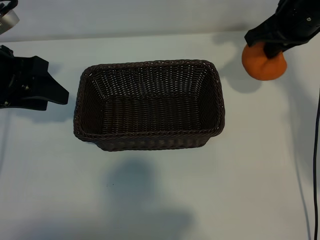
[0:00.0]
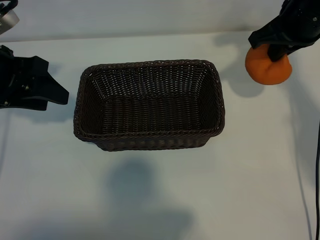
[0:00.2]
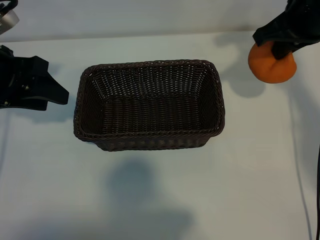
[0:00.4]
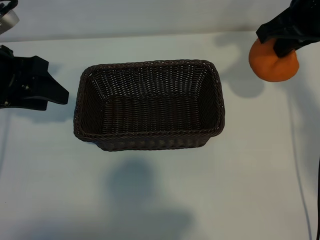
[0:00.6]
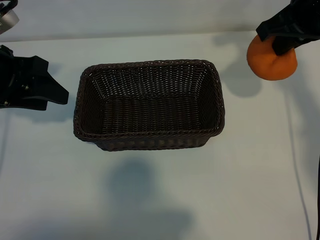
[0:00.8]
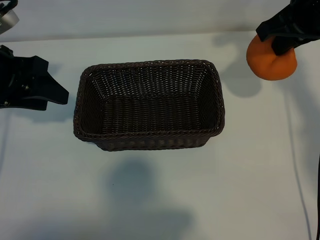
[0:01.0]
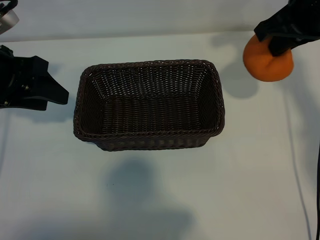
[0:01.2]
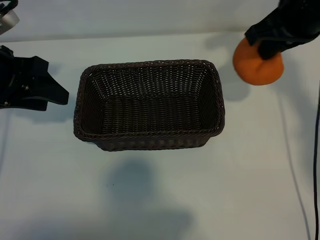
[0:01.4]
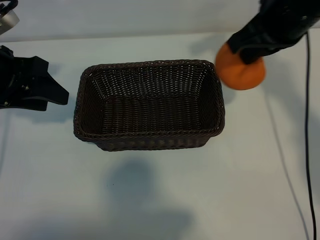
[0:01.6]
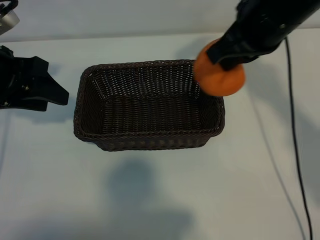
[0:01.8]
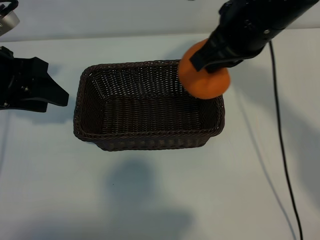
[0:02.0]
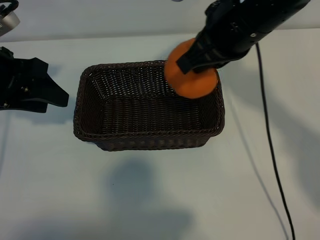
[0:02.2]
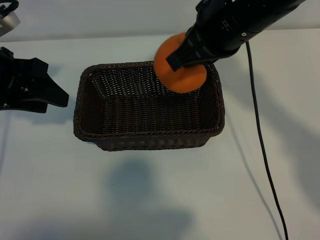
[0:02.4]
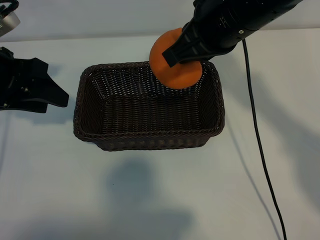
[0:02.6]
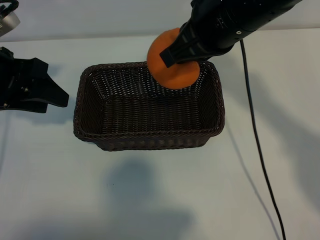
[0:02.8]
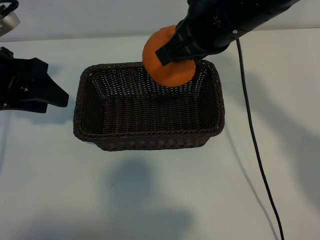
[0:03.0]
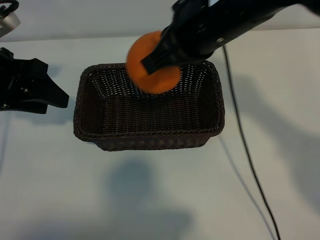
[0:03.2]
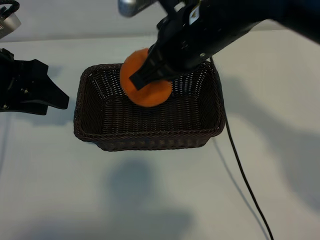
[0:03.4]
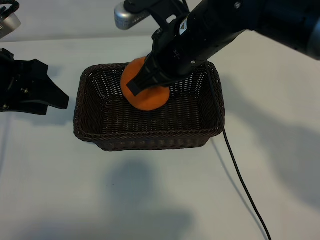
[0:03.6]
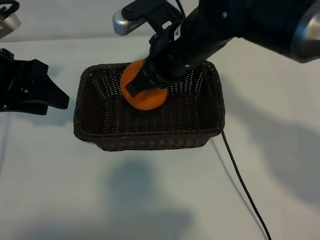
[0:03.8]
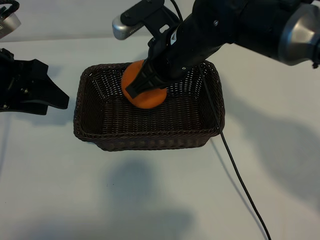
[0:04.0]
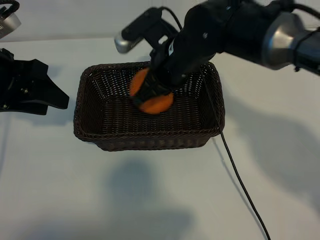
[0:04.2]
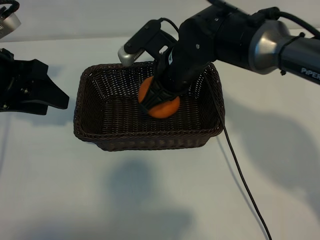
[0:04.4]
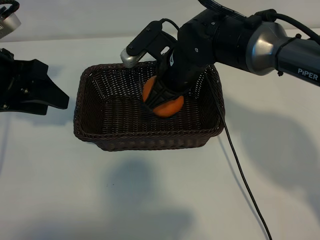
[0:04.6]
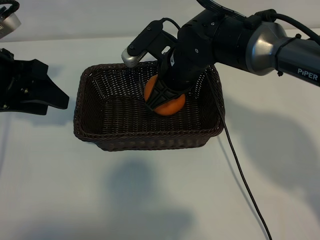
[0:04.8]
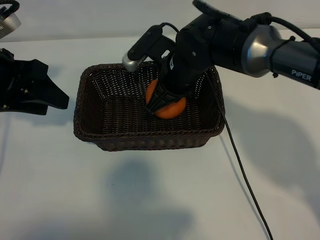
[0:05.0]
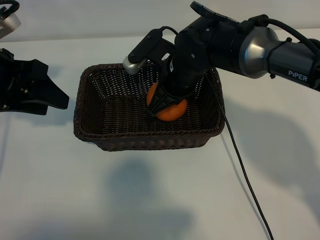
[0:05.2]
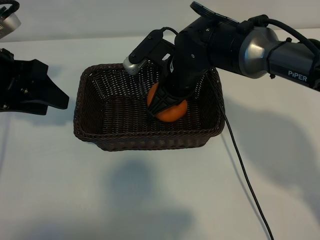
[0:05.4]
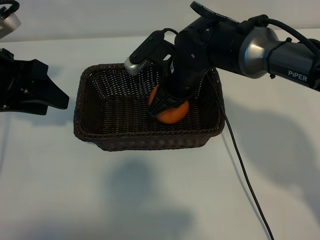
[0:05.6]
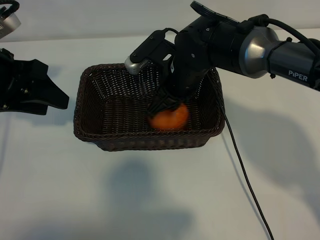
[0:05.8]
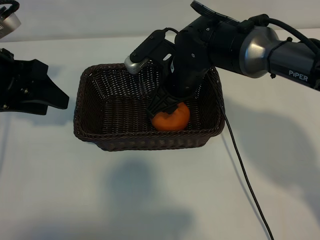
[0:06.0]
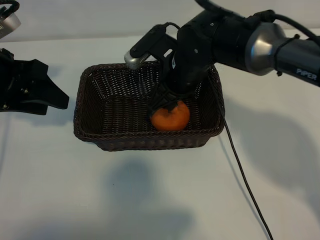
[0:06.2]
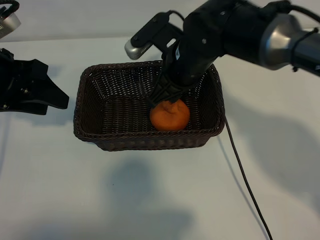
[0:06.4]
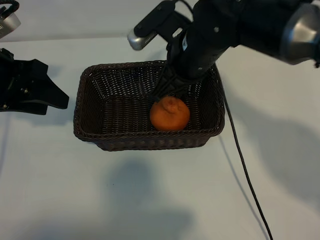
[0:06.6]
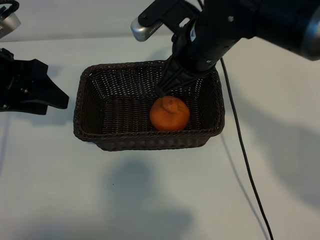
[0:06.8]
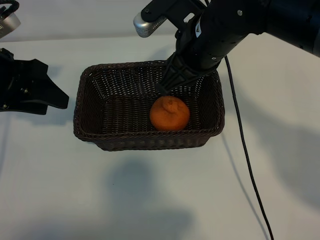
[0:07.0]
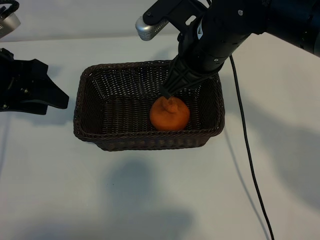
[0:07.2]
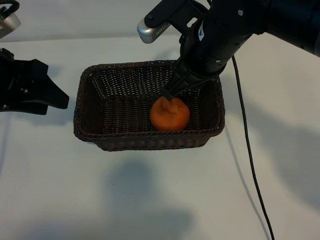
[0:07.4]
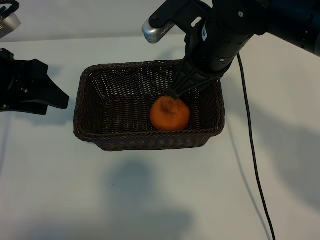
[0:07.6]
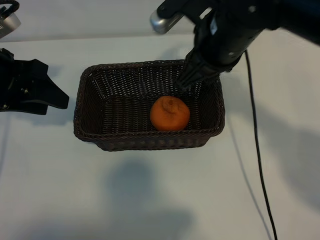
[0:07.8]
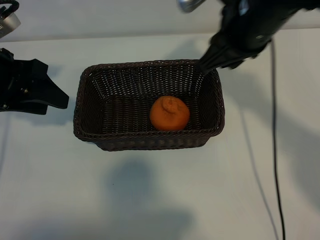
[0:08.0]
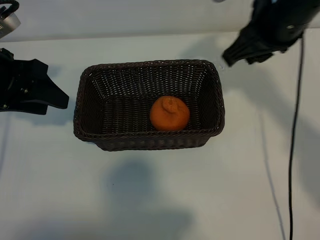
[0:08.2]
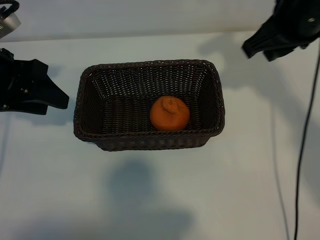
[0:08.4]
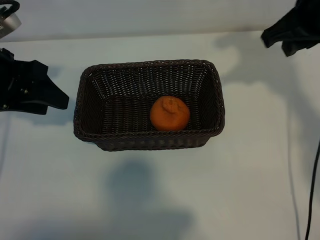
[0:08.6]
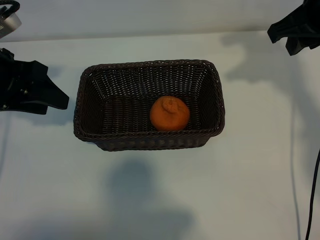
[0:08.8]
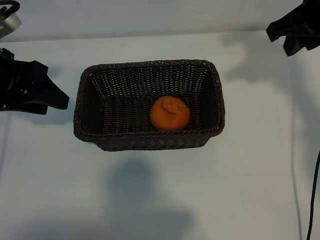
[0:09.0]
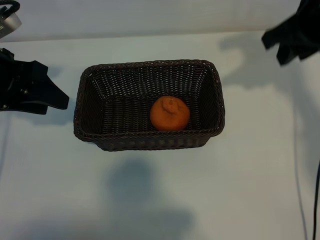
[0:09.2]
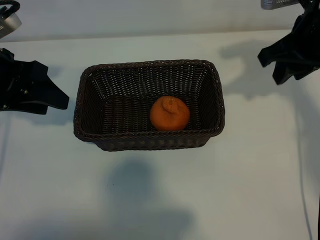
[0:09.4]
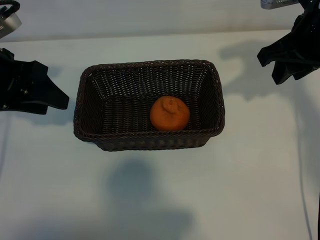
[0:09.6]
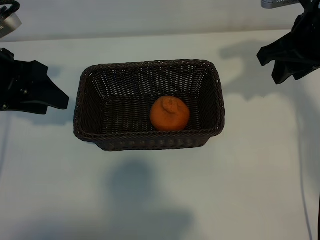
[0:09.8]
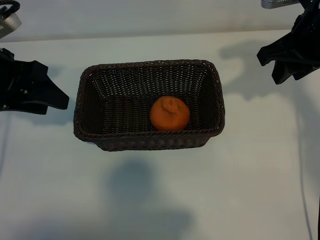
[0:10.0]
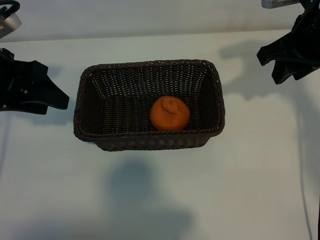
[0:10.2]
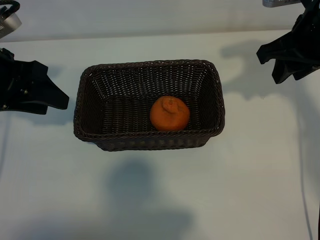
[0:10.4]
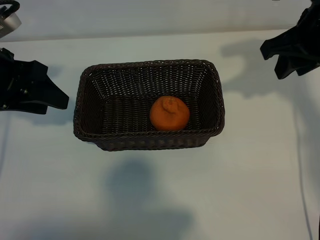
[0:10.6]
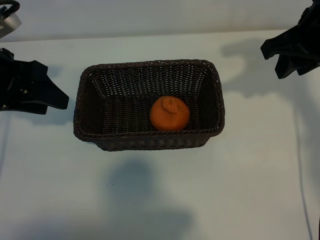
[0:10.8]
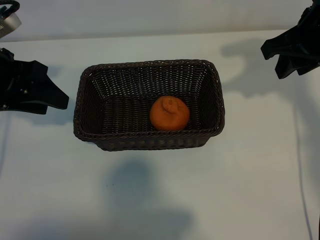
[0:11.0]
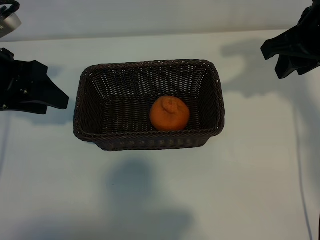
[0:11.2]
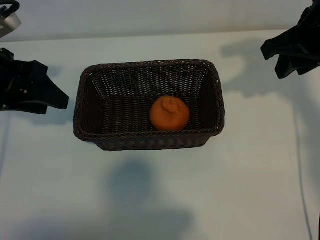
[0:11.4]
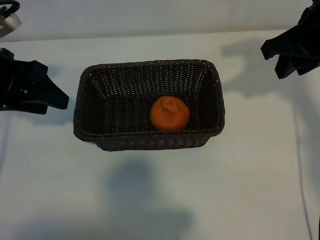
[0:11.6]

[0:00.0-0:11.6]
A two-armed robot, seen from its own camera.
Task of the whole recording: pick up the orange and put it into the basket.
Step, 0:00.0 to 0:05.8: Place the orange in the basket with right gripper.

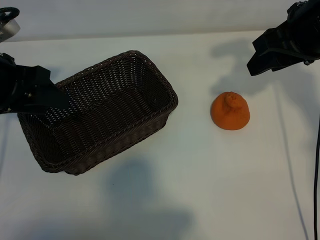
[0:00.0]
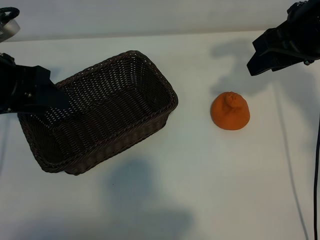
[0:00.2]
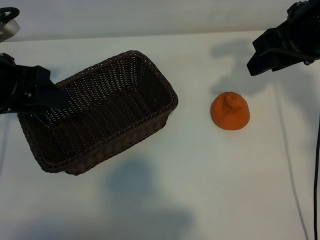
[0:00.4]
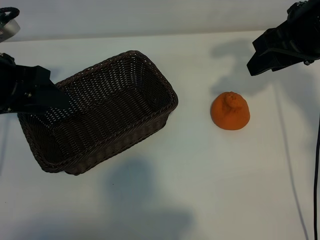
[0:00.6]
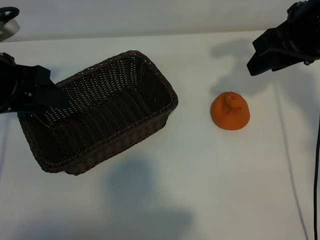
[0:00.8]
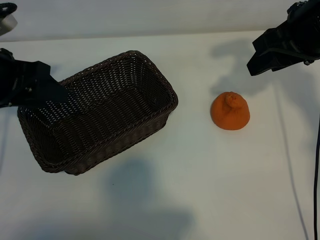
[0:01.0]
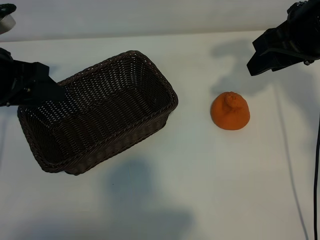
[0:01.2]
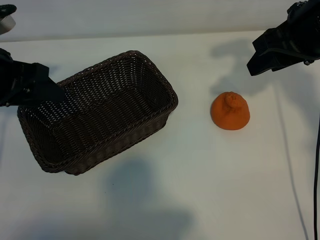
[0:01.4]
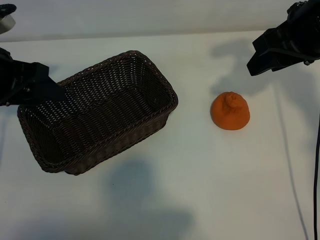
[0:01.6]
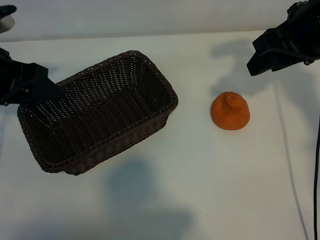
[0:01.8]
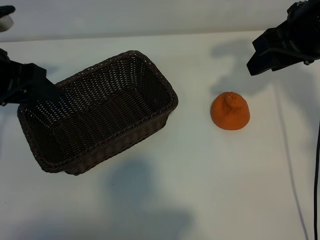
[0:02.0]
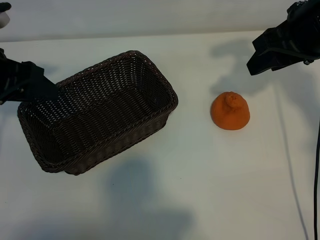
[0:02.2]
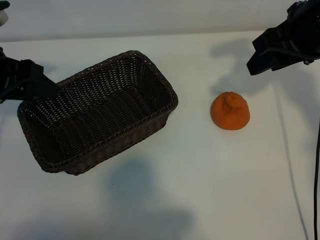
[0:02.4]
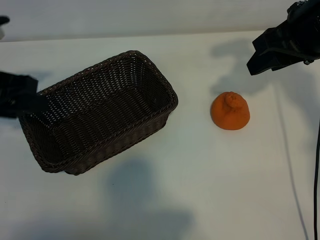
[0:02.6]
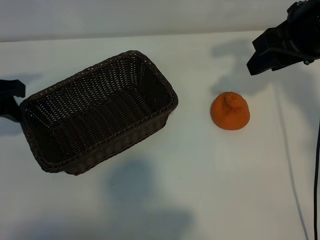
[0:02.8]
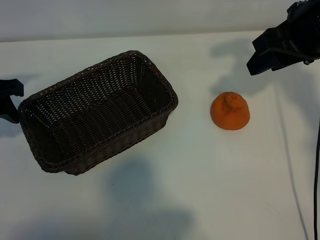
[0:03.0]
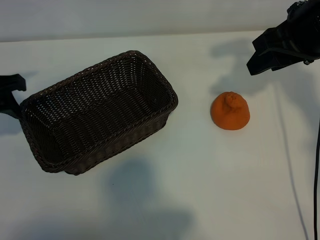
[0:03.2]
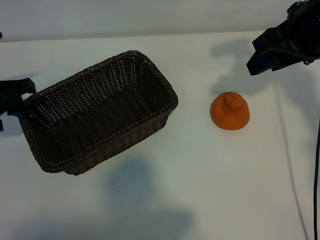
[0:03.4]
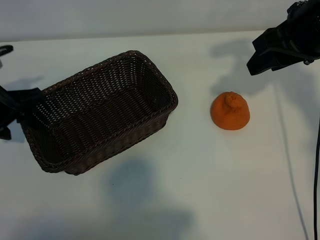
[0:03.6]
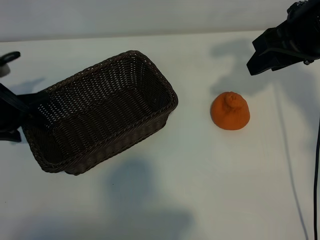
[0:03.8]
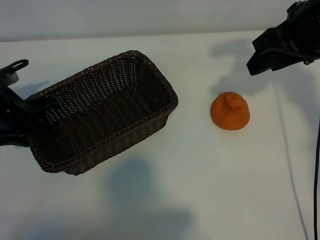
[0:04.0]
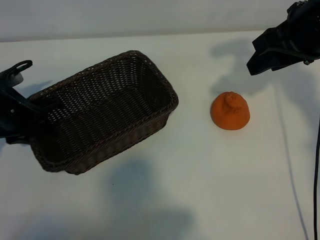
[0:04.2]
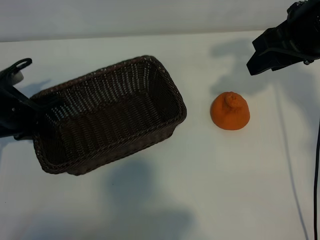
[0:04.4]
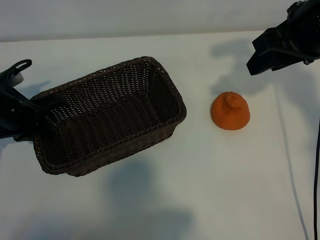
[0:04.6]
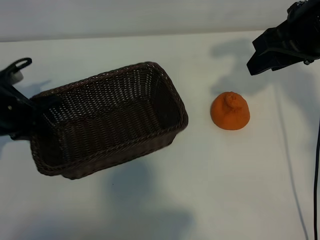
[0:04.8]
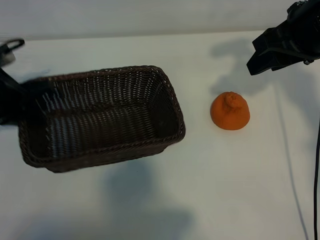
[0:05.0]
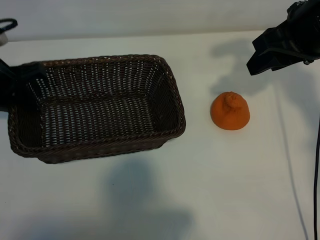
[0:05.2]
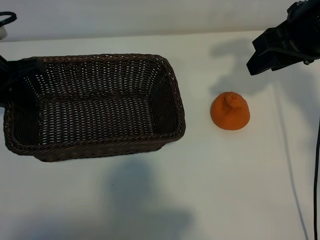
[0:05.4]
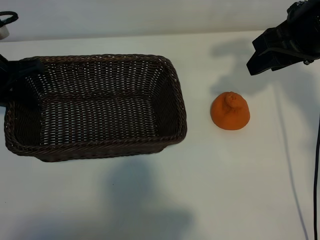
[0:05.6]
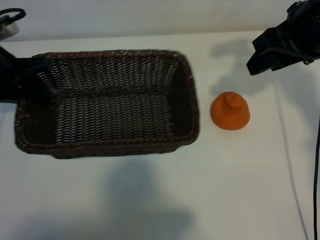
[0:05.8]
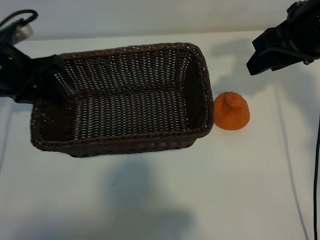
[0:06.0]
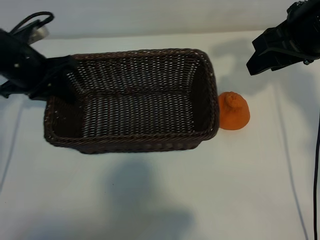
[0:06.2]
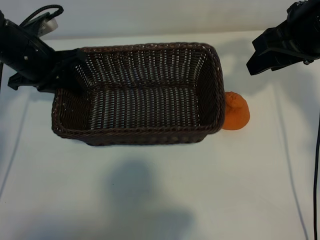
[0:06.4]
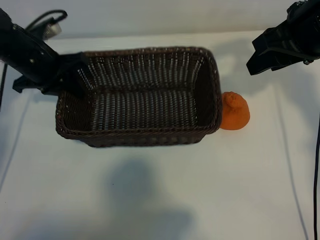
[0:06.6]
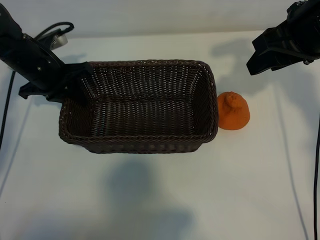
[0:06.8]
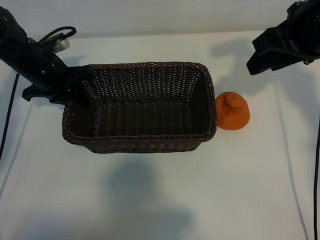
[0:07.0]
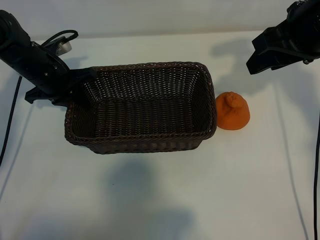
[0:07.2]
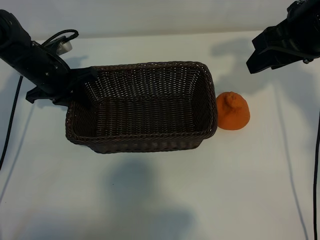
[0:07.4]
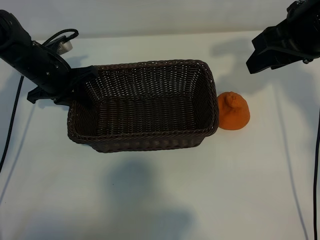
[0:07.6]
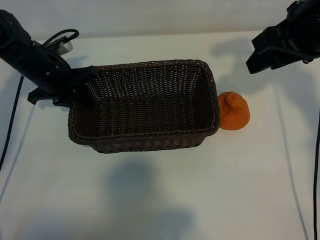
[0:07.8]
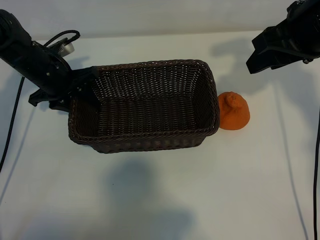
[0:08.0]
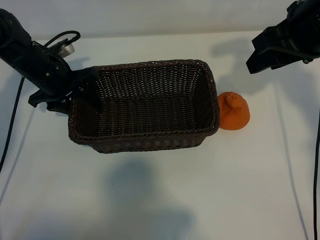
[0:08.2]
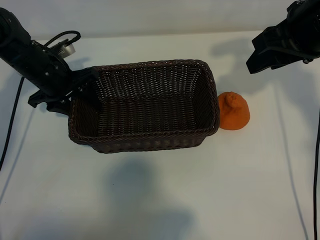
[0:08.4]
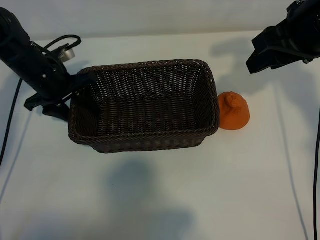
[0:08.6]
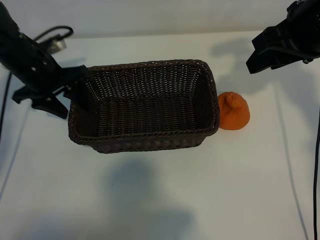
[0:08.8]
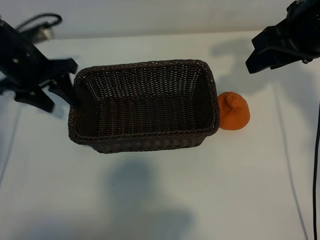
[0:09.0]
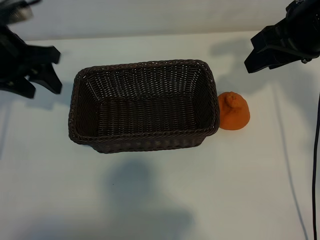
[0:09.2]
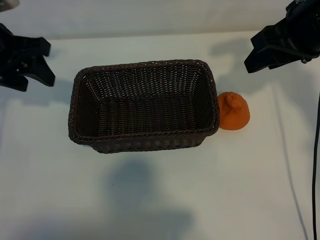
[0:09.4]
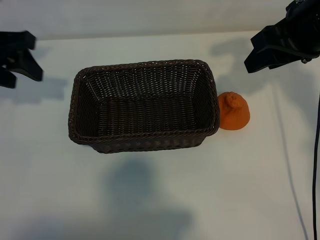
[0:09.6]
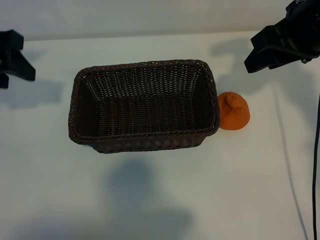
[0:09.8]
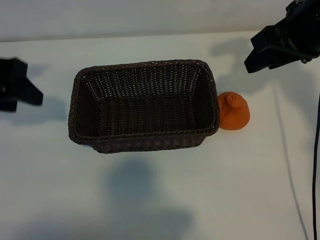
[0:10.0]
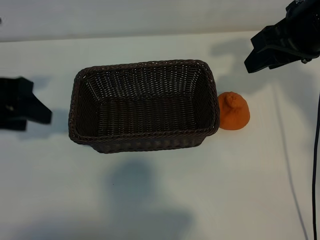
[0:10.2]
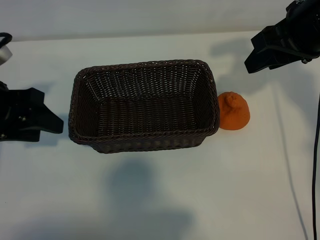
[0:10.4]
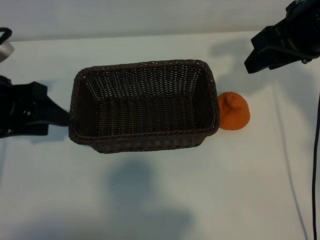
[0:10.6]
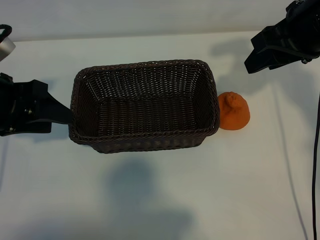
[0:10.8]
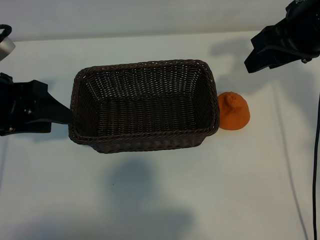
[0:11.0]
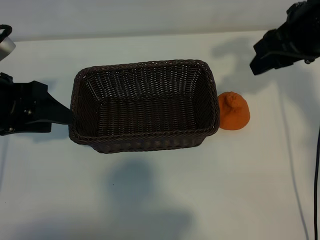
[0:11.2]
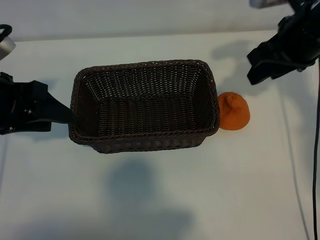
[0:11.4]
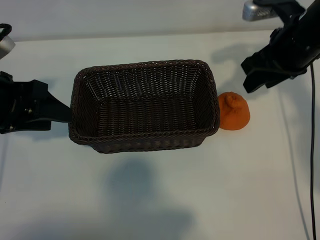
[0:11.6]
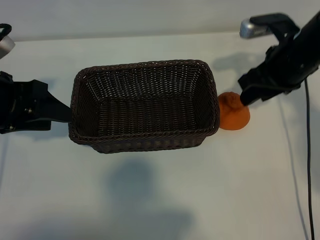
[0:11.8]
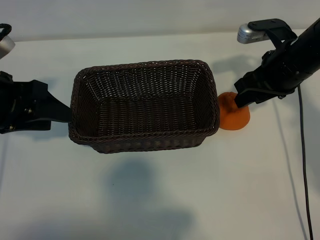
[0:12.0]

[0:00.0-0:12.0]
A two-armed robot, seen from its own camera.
Task of the whole recording: pick up the orange and put it into the basket.
Step, 0:00.8 to 0:04.2: Grasp the basket with left gripper.
Step, 0:04.6 to 0:07.8: Place the basket in the center of view with left gripper.
